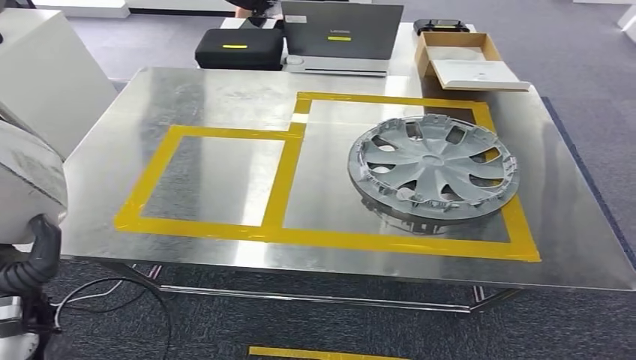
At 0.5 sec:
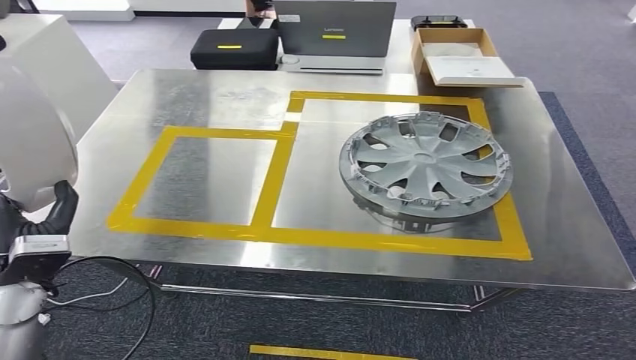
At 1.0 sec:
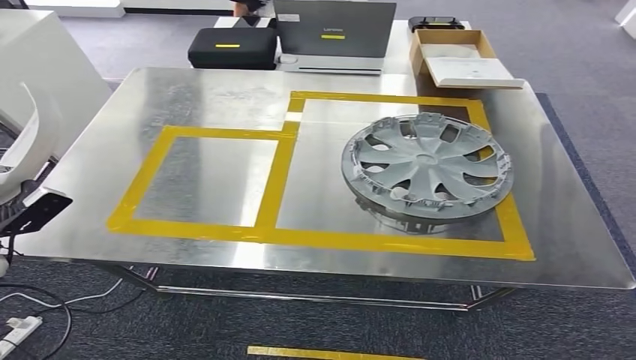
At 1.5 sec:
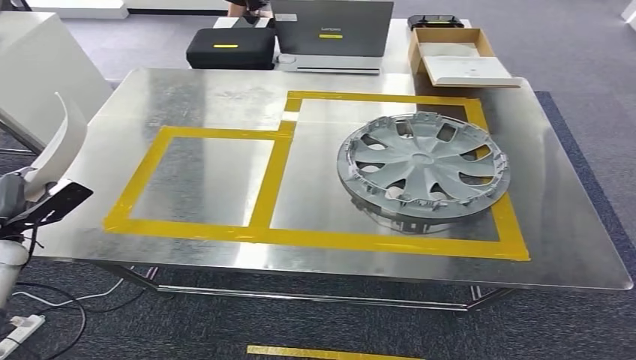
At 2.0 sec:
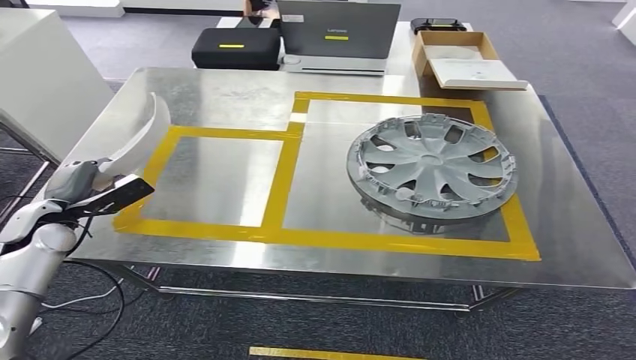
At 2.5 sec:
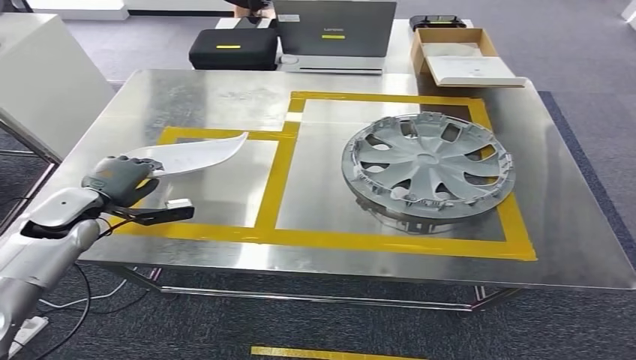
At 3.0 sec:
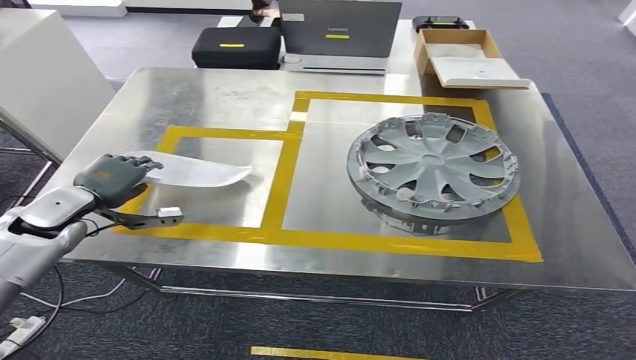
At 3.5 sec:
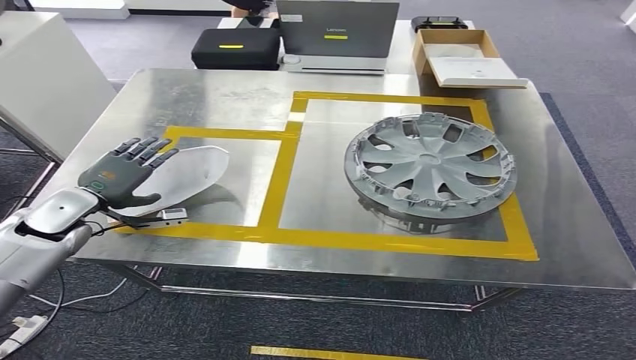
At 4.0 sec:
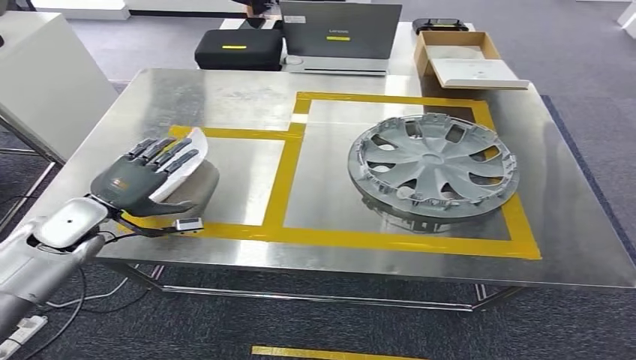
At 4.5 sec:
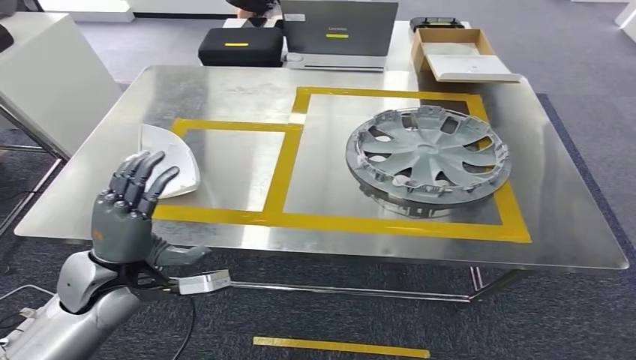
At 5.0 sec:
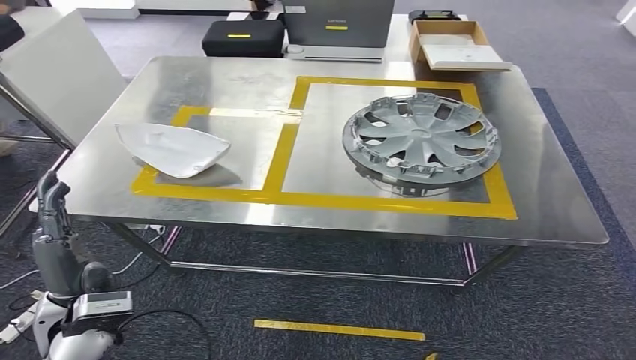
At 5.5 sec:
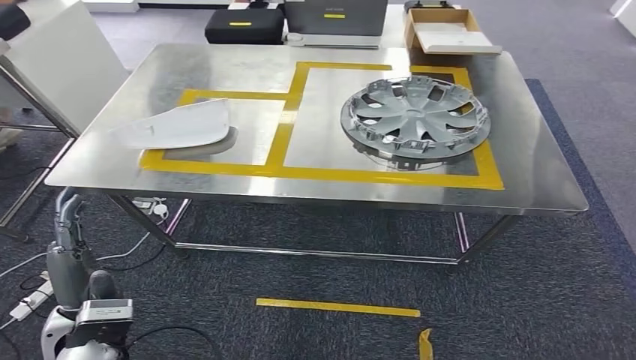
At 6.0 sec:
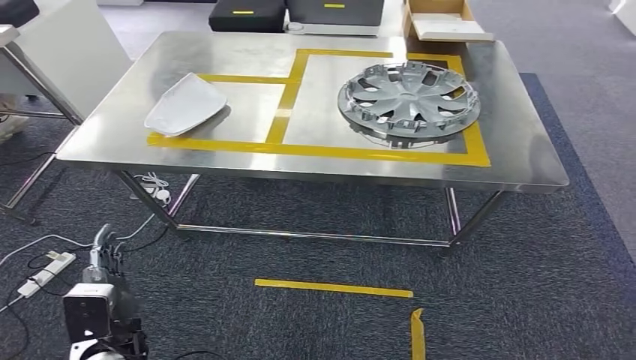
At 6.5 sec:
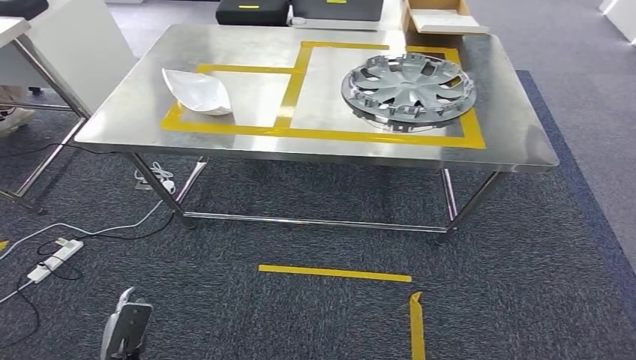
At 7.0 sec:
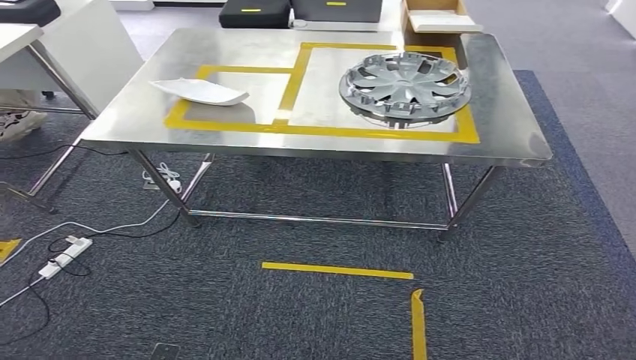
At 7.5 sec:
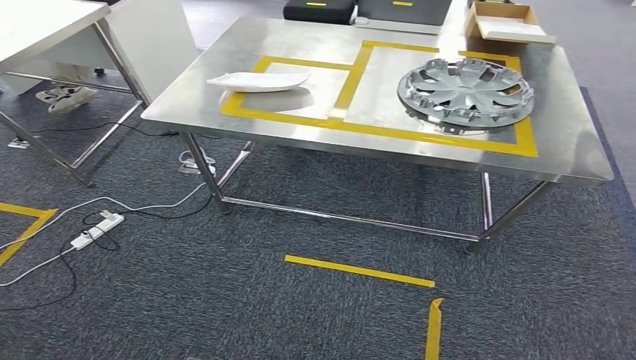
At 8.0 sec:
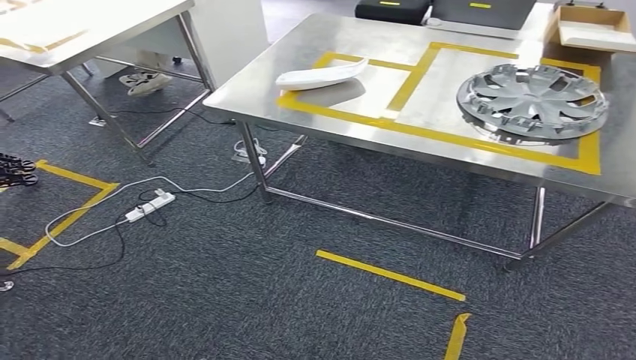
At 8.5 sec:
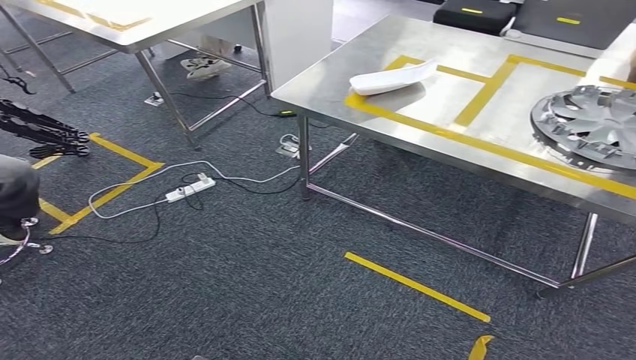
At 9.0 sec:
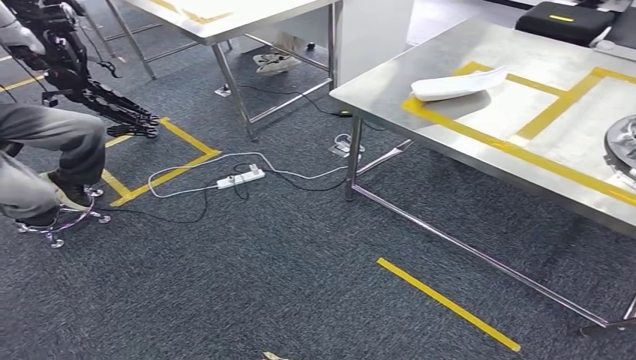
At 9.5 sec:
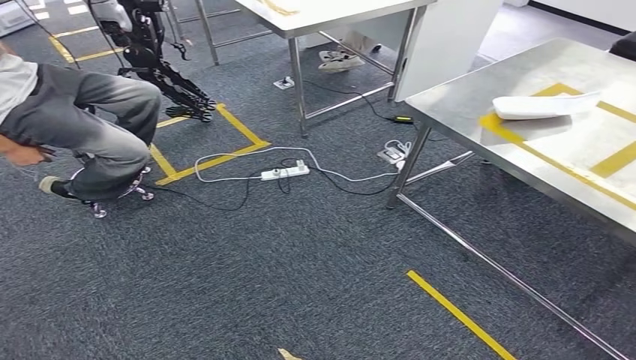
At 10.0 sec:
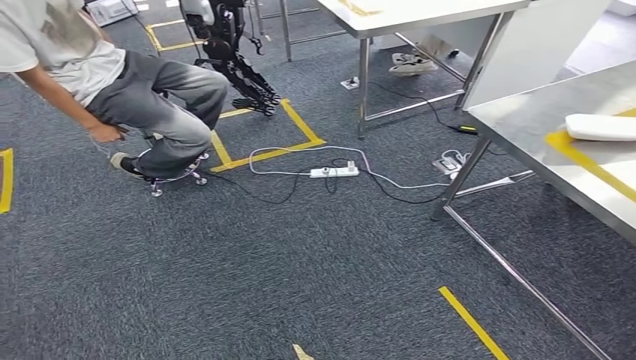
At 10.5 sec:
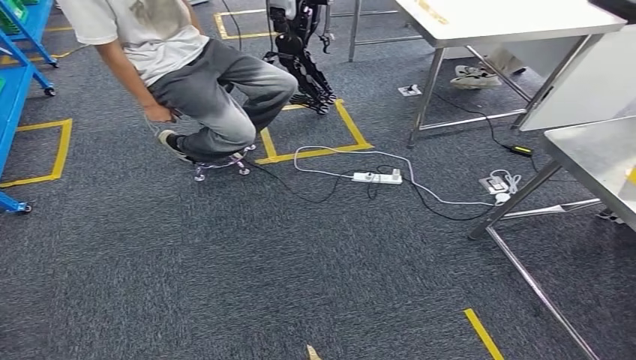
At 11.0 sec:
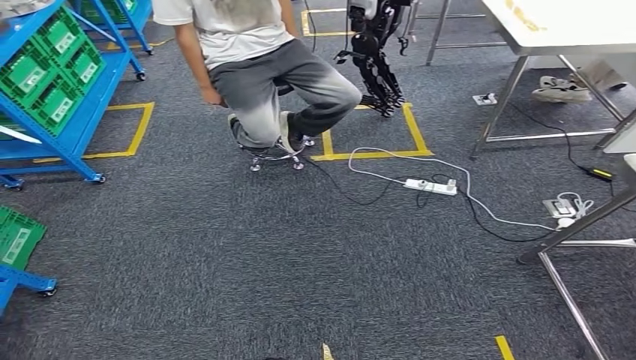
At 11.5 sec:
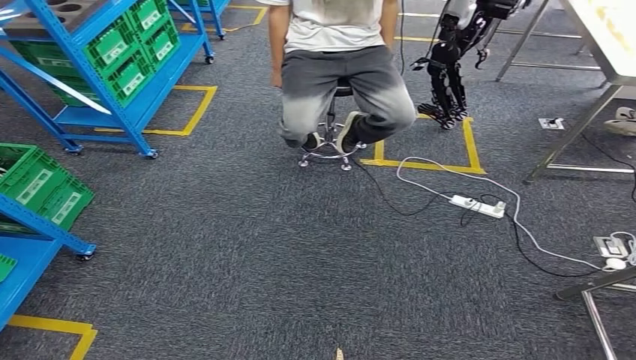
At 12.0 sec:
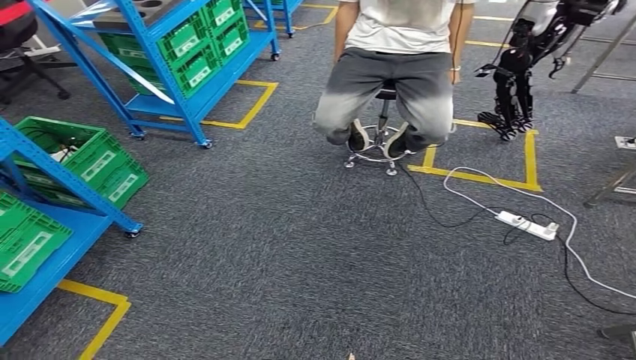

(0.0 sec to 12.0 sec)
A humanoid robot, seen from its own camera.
Step, 0.0 sec - 6.0 sec: Insert the small parts into the corresponding holes on the workbench.
0.0 sec - 2.0 sec: The left hand goes some 20 cm forward and to the left.
2.0 sec - 4.0 sec: The left hand heads to the right, covering roughly 5 cm.

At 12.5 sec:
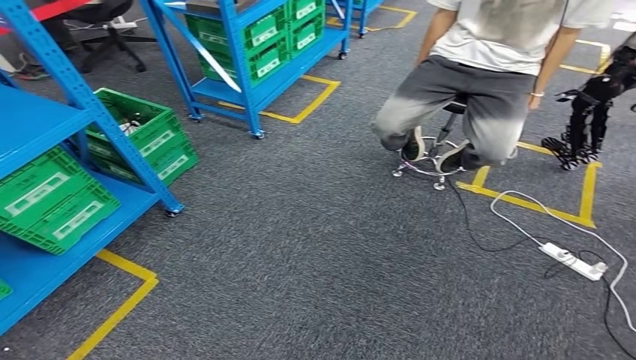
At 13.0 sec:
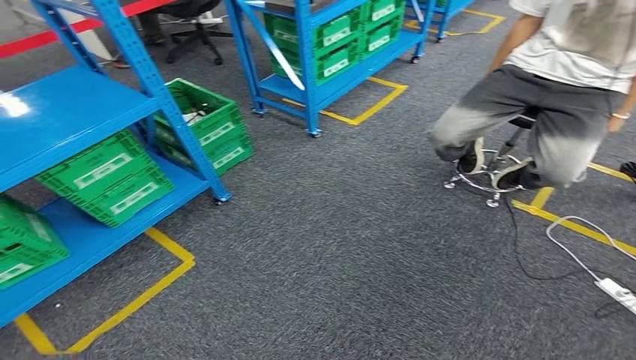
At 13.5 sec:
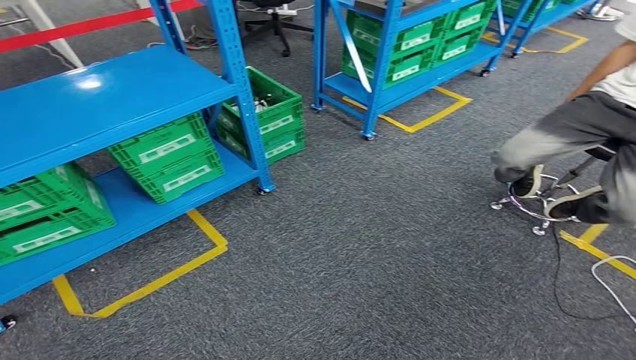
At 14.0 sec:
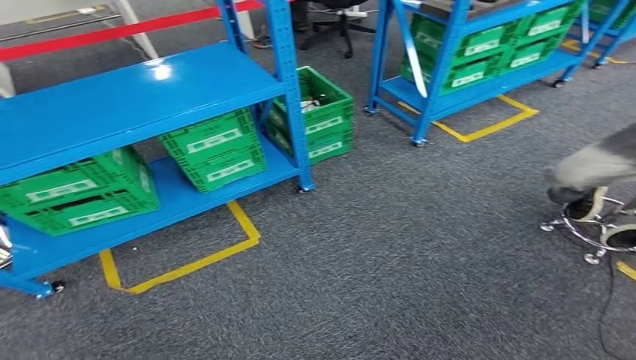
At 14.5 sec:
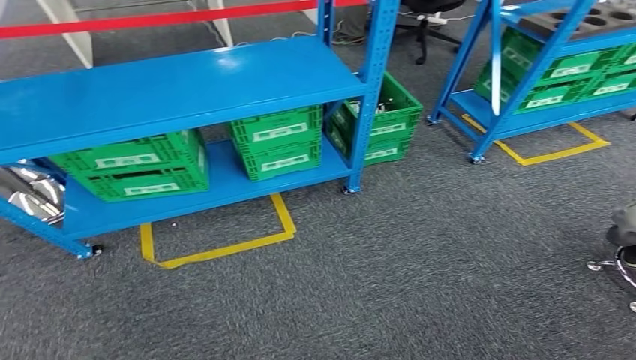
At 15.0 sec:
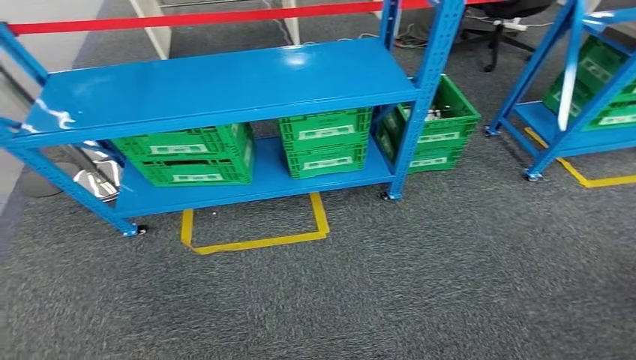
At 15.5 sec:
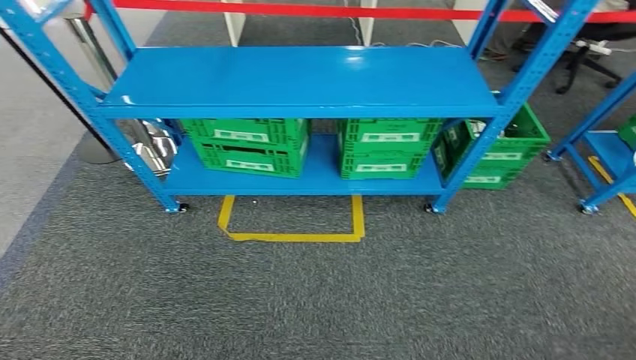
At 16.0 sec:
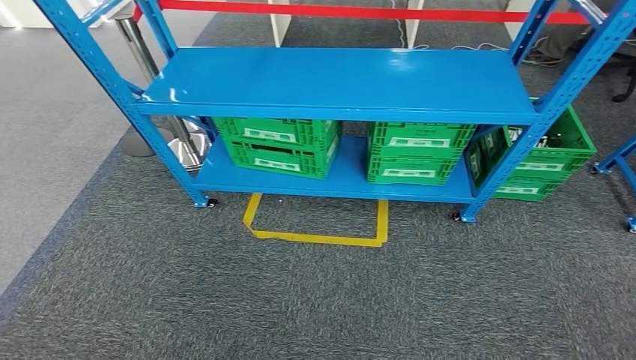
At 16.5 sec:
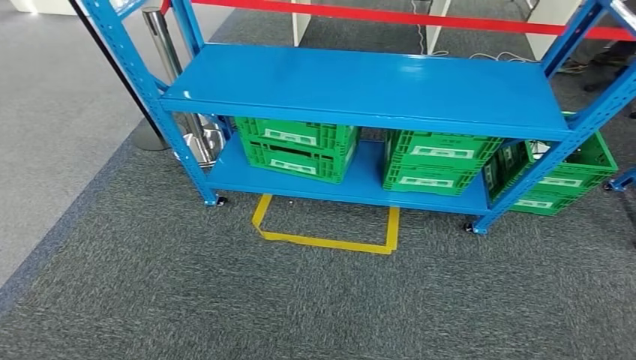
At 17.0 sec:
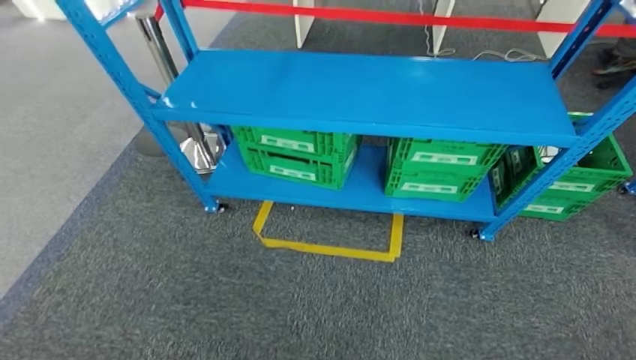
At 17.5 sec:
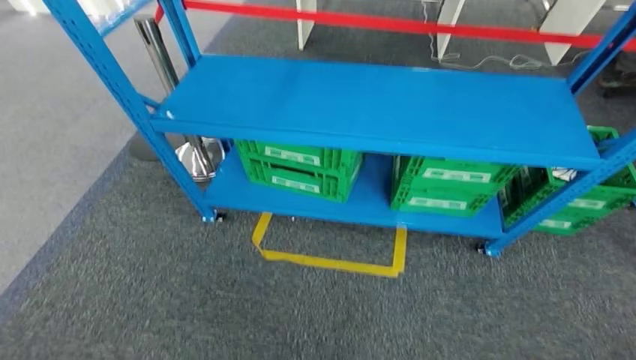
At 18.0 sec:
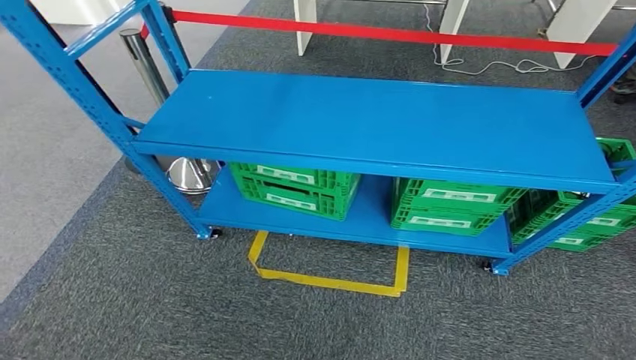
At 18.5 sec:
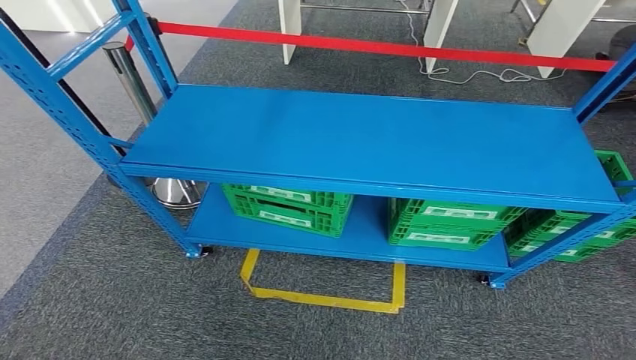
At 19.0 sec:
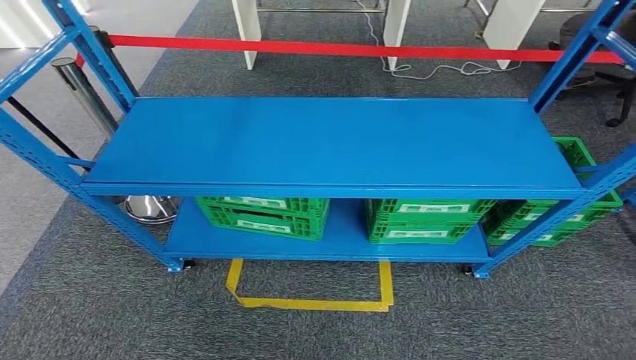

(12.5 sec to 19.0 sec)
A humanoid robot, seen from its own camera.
Step, 12.5 sec - 19.0 sec: Move to the initial position of the workbench.
